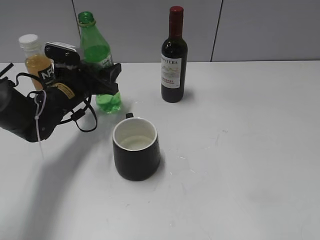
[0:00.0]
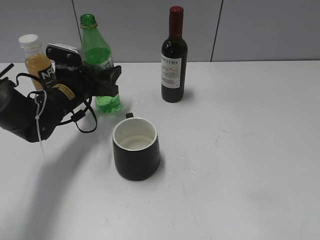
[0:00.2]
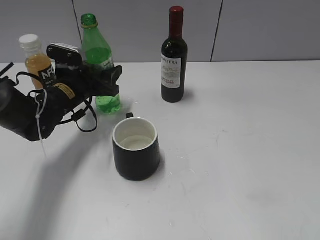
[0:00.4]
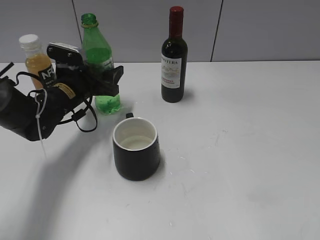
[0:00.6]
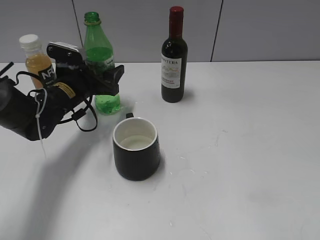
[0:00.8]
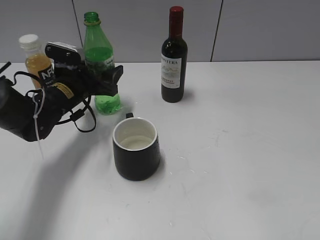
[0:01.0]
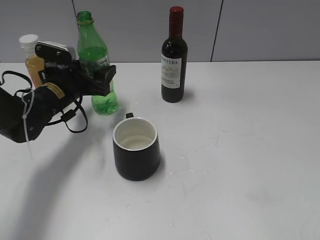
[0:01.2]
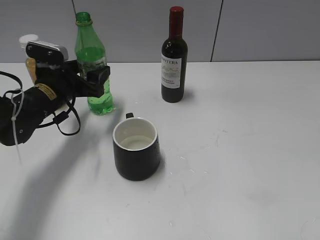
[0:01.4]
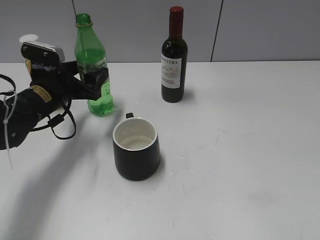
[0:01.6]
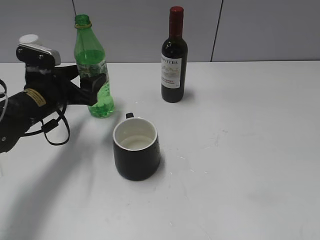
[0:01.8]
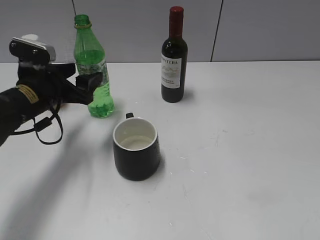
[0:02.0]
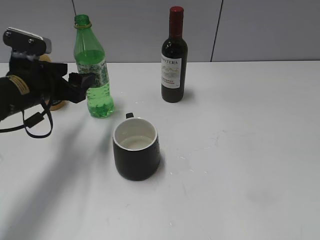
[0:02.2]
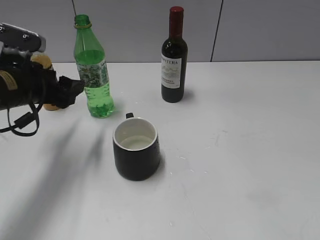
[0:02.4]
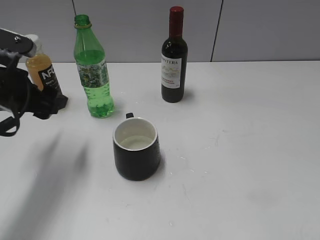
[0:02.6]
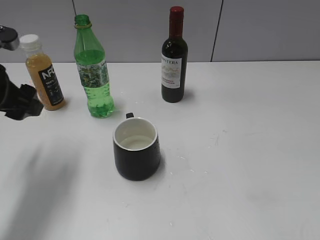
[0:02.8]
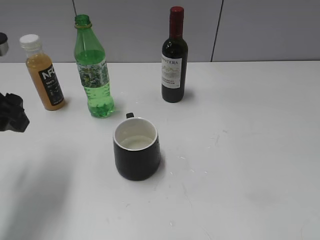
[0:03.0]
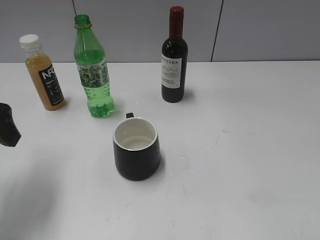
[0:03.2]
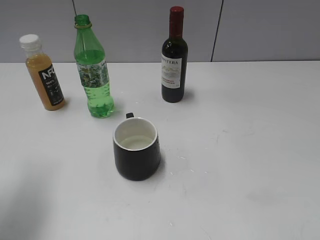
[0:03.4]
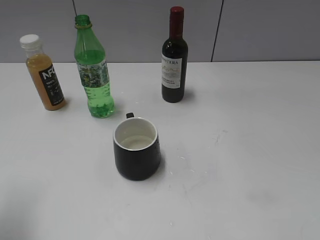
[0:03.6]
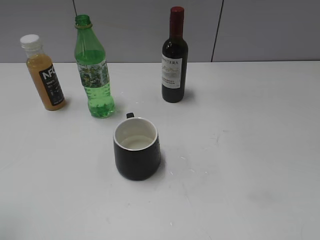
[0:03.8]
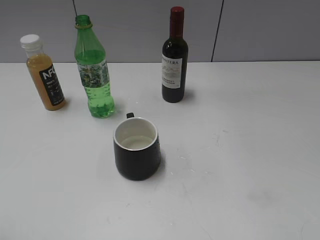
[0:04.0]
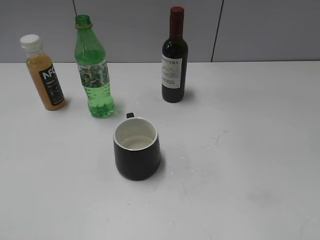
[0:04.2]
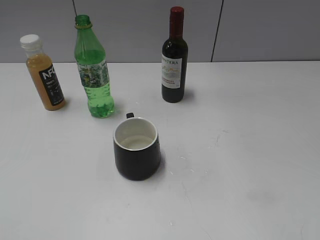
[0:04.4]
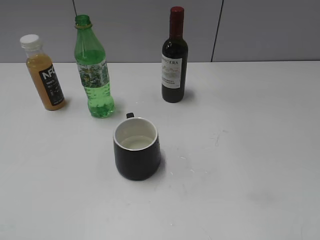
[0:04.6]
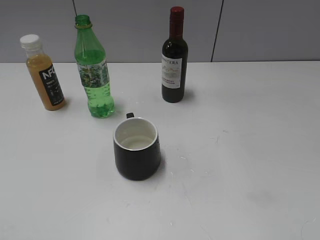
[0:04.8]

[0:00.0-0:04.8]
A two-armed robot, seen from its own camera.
0:00.0 to 0:01.6: The left gripper moves roughly 5 cm, and opens up.
0:01.6 to 0:03.2: The left gripper goes some 15 cm backward, upward and to the left.
0:03.2 to 0:04.8: The left gripper heads backward, covering some 25 cm.

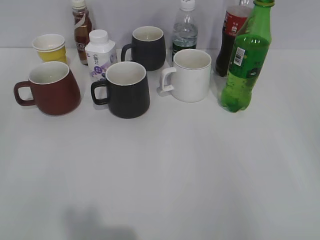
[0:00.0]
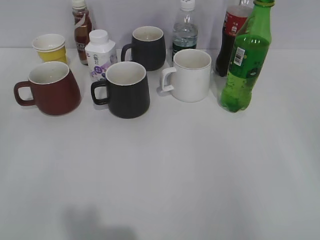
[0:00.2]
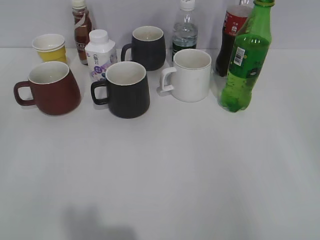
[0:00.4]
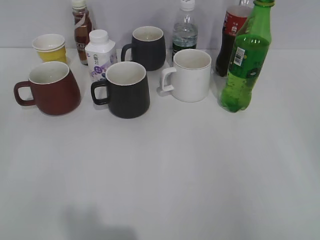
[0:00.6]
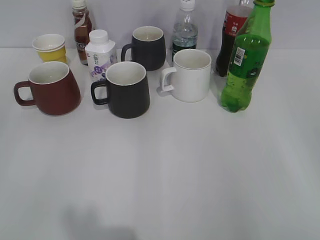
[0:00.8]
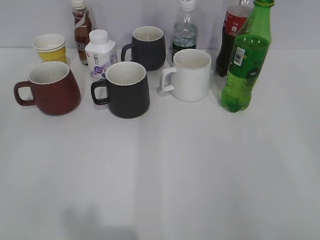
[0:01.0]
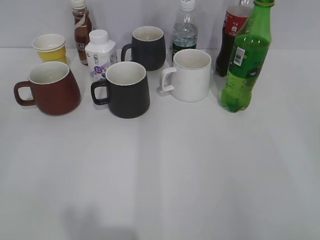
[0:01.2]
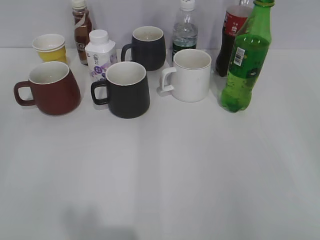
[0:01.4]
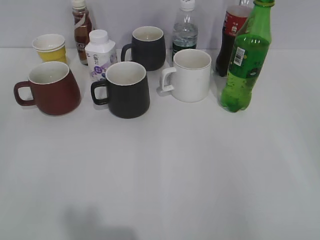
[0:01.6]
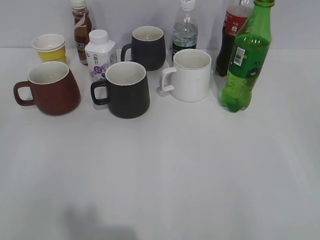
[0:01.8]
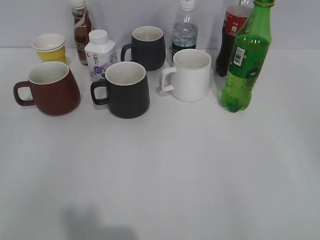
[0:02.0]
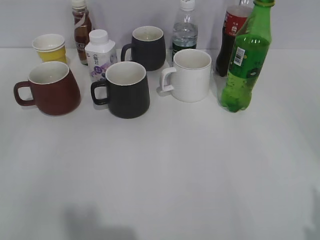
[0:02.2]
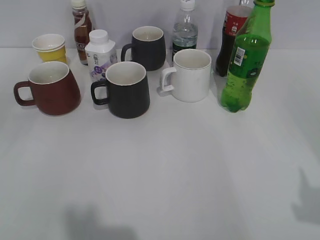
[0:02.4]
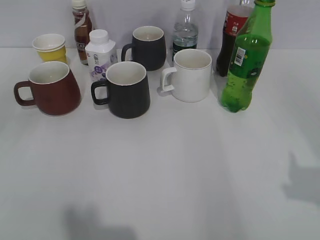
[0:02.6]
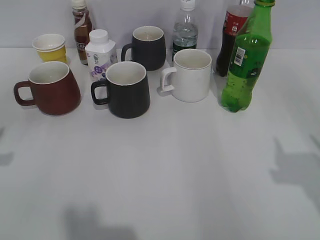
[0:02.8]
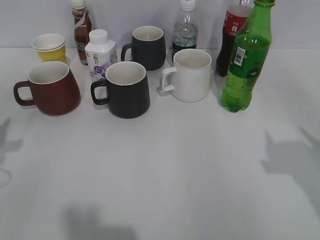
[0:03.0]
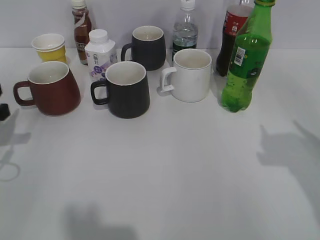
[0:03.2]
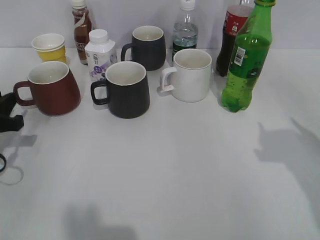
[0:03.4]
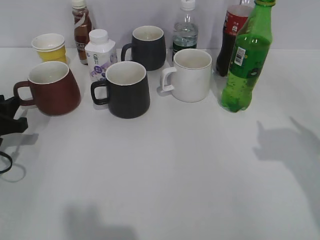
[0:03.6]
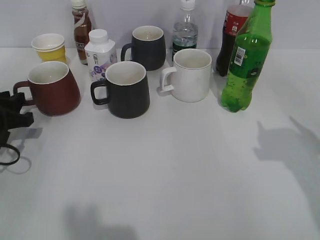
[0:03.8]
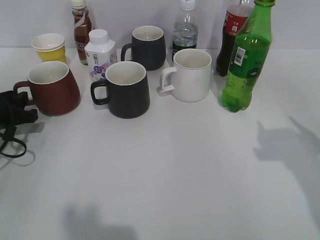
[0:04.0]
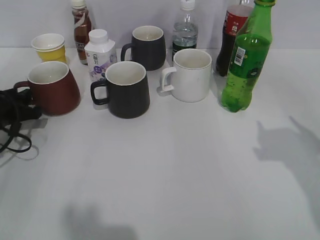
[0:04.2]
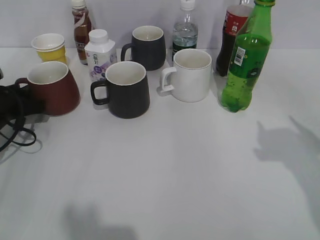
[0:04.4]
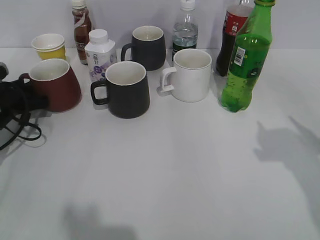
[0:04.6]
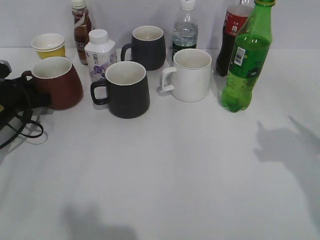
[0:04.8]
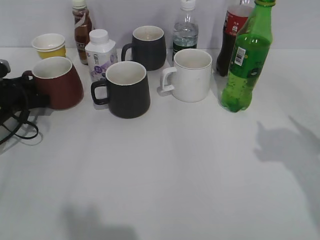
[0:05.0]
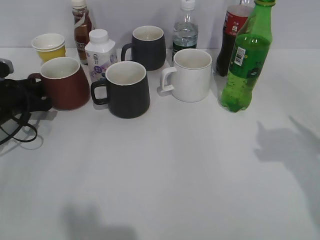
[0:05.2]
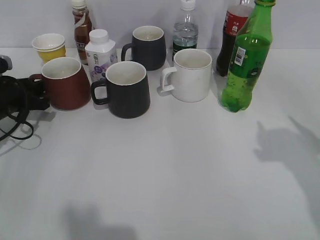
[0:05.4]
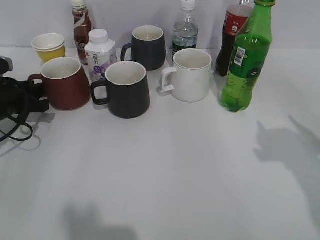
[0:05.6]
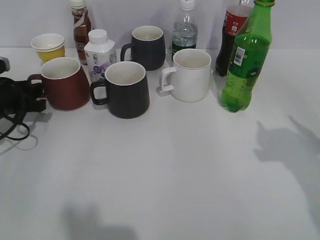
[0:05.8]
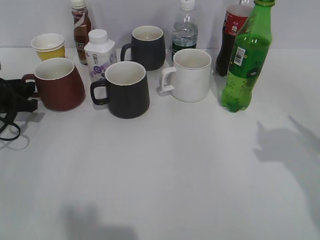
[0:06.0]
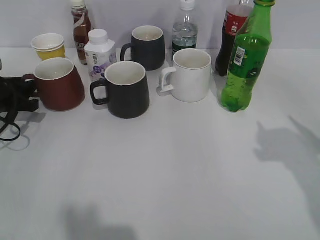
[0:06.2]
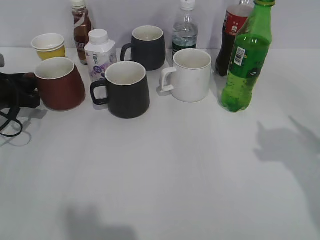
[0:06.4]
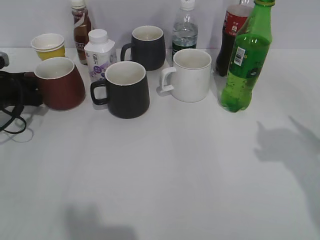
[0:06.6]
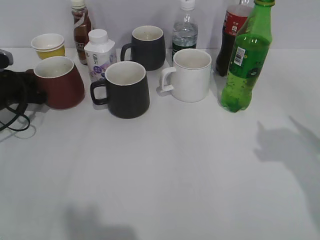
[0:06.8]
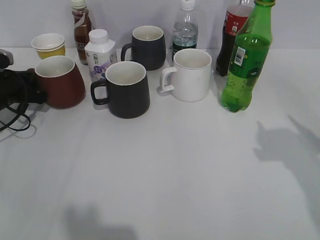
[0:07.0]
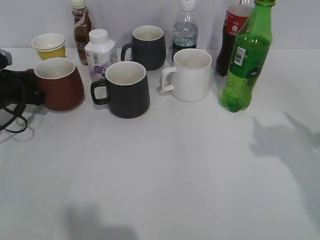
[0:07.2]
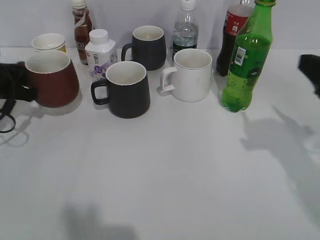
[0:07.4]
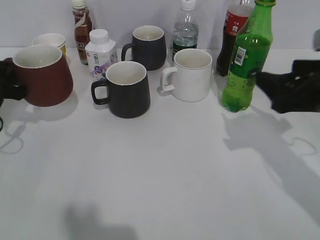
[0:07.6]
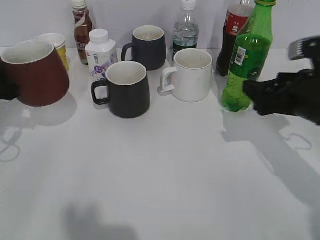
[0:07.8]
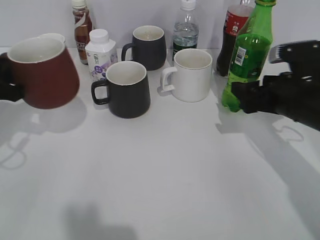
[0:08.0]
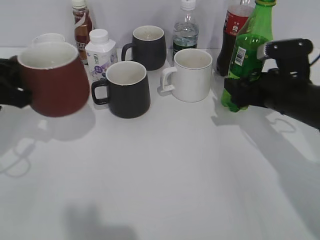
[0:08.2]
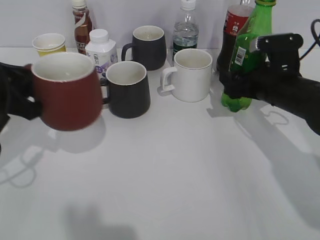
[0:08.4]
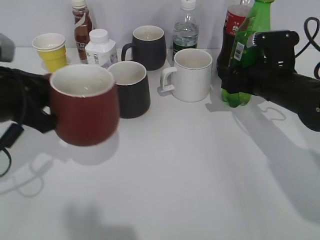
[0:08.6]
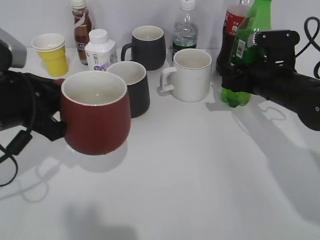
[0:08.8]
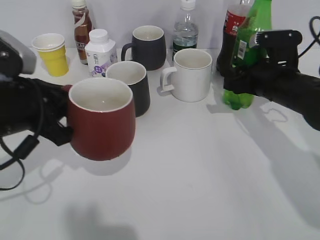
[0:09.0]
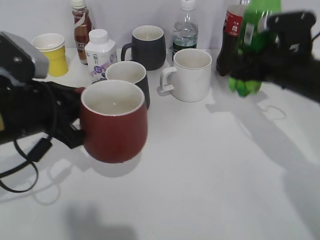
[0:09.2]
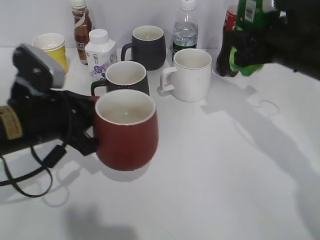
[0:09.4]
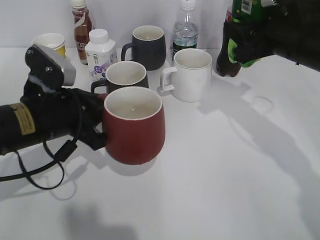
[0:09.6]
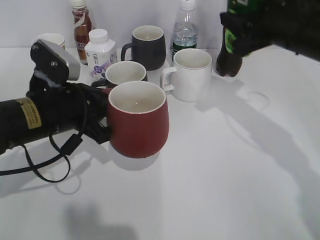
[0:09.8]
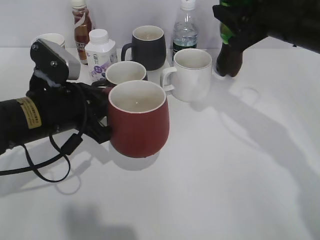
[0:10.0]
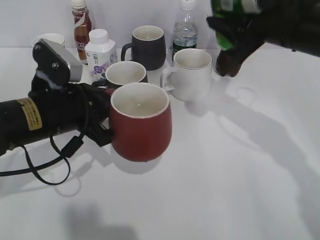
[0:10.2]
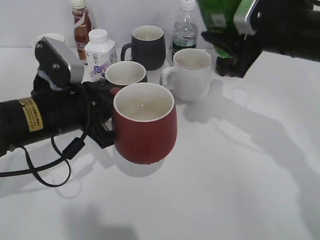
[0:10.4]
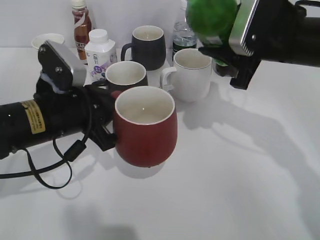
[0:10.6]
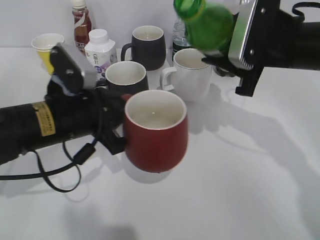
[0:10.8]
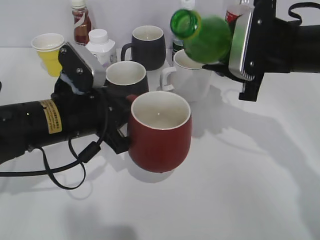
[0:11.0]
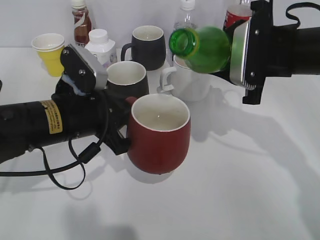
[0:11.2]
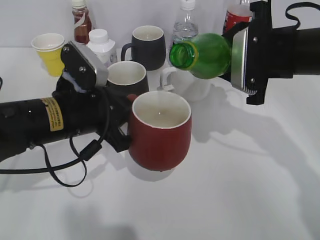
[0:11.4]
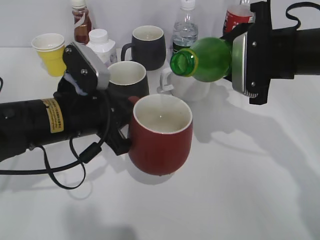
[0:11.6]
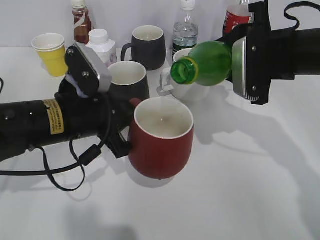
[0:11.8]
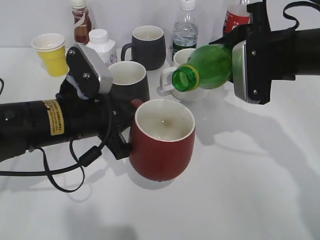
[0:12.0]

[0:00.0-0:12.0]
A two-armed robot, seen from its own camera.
Step, 0:02.0 to 0:06.8: Grasp the red cup with left gripper.
Step, 0:07.2 to 0:08.6: Grasp the bottle with sprite with right gripper.
0:01.6 to 0:03.0: The right gripper travels forward by some 15 cm.
0:03.0 to 0:04.4: The left gripper travels forward and downward by approximately 15 cm.
0:04.4 to 0:06.0: The grippers make only small movements.
0:06.0 to 0:07.6: The right gripper travels forward and downward by approximately 10 cm, while the left gripper ends up approximately 5 cm from where it was, and closes.
0:07.6 to 0:09.0: The right gripper moves forward and downward, approximately 15 cm, and closes its fingers. Meanwhile the left gripper goes about 15 cm to the right and backward.
0:09.0 to 0:10.4: The right gripper shifts some 10 cm upward, while the left gripper moves some 5 cm.

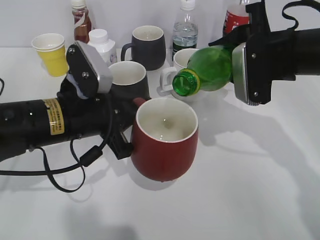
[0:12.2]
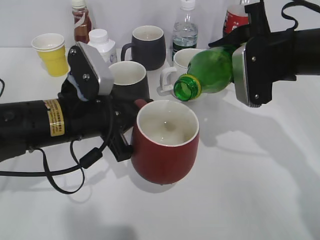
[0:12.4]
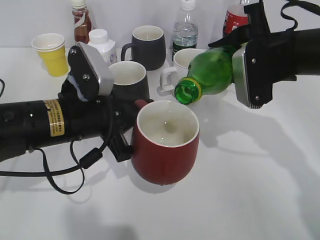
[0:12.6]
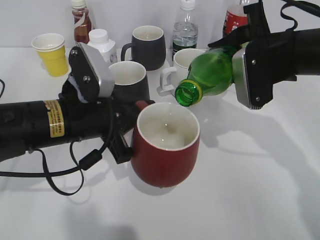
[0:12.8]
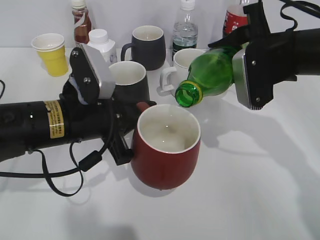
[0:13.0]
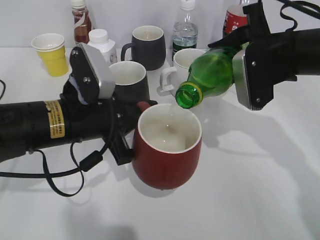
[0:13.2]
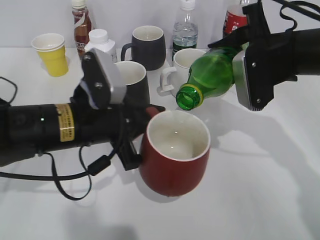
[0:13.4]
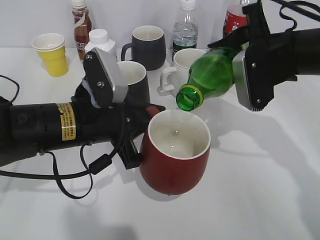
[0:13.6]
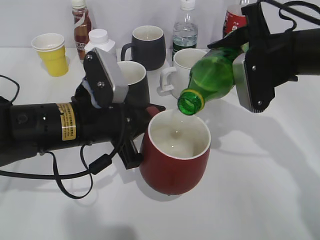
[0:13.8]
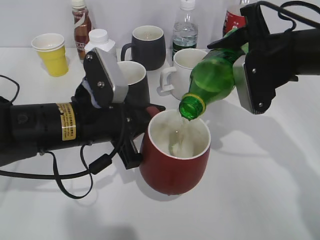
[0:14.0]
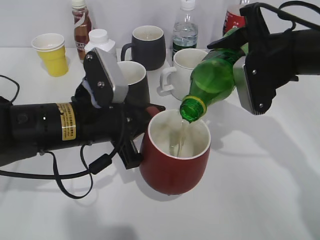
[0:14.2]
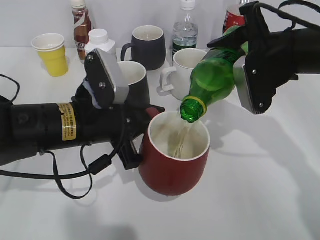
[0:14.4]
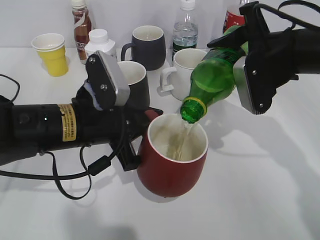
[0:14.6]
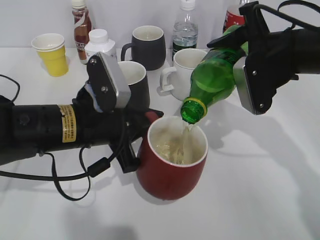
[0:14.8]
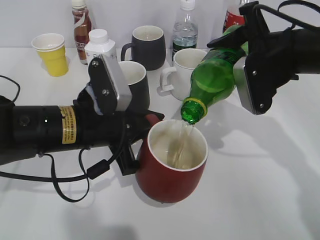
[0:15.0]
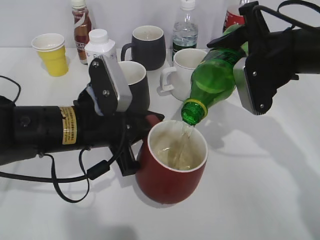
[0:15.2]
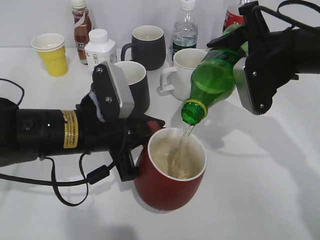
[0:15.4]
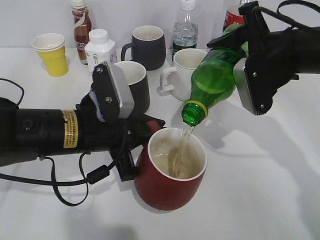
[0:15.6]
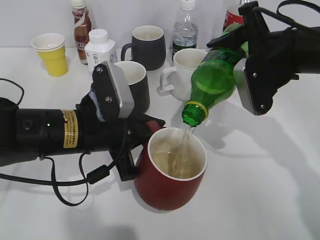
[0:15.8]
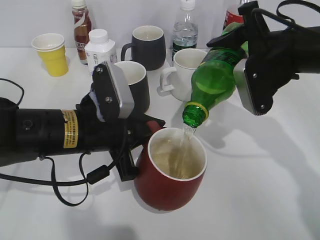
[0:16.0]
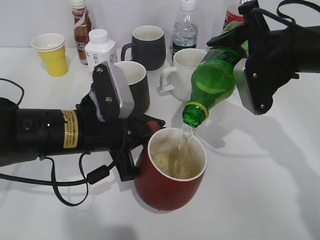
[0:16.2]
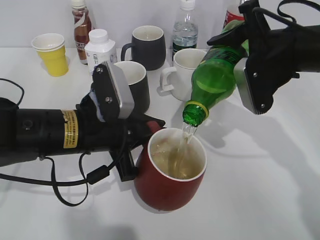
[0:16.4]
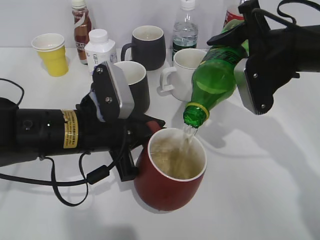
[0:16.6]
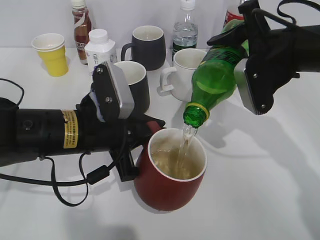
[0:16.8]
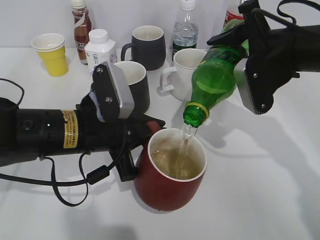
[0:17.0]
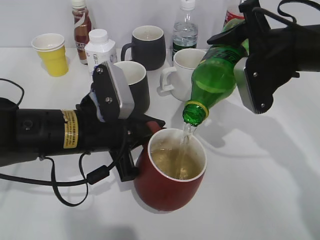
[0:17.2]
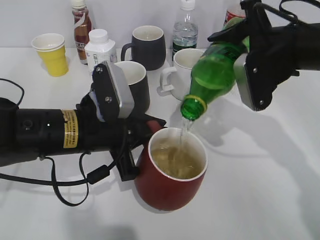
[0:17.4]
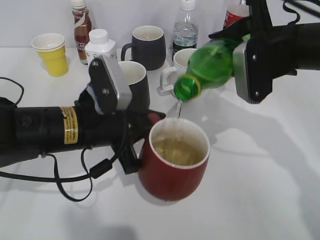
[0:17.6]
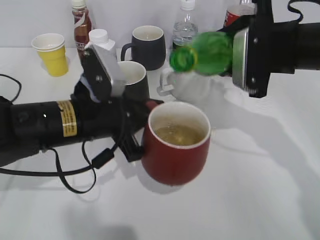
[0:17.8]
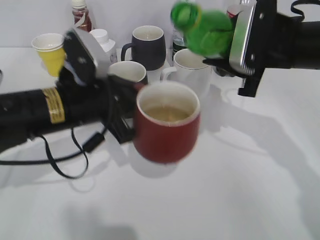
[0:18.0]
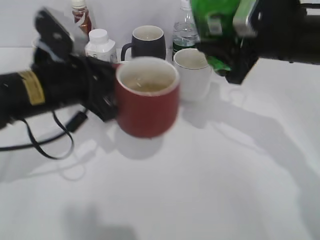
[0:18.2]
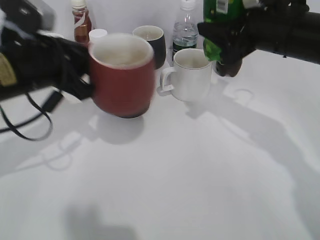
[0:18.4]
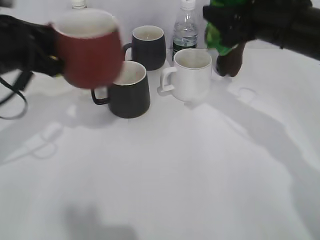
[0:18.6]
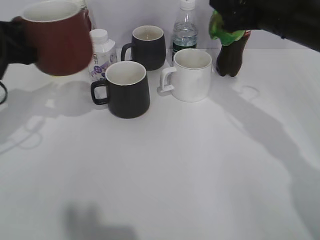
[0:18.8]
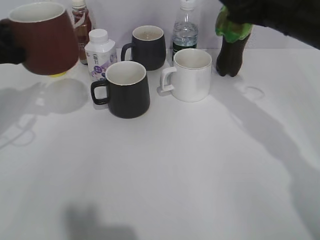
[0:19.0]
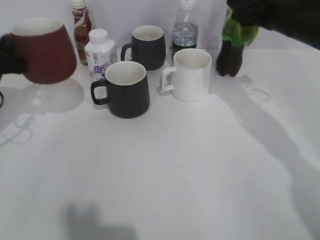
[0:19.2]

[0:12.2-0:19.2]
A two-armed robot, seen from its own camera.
Step, 0:12.2 to 0:17.8: Pour the sprite from bottle to cup with right gripper.
Step, 0:18.0 to 0:18.8: Place the black cup on the table with left gripper.
0:12.2 to 0:15.0: There are only small adjustments of the grippers.
0:15.0 to 0:16.4: Both grippers stay put.
0:17.8 to 0:19.2: The left gripper shifts approximately 20 cm to the left; the right gripper changes place by approximately 5 cm.
